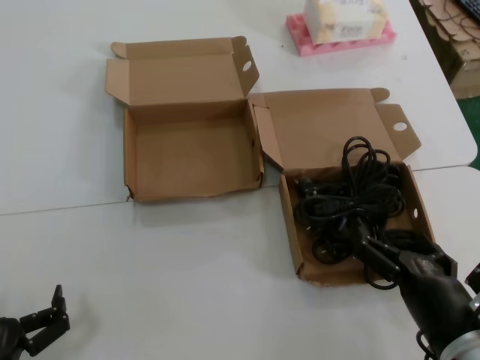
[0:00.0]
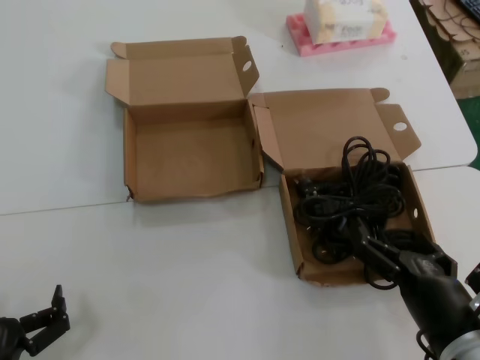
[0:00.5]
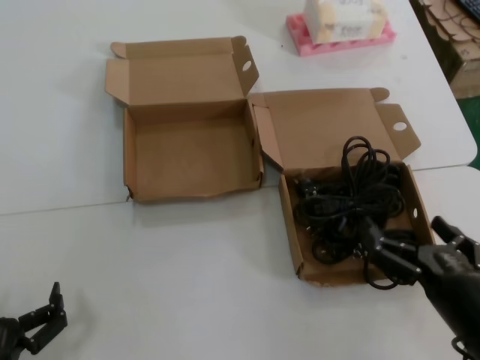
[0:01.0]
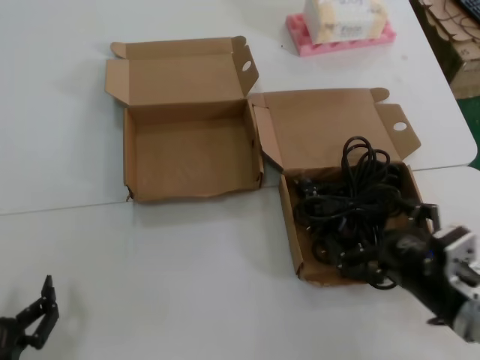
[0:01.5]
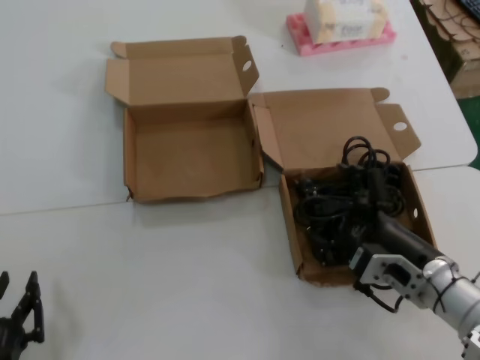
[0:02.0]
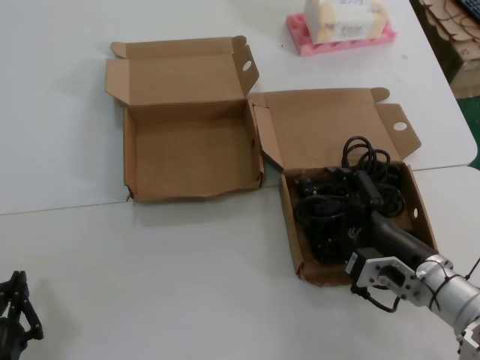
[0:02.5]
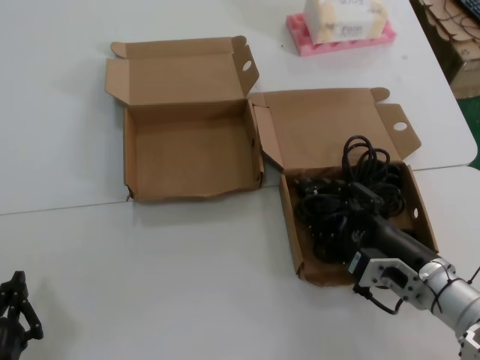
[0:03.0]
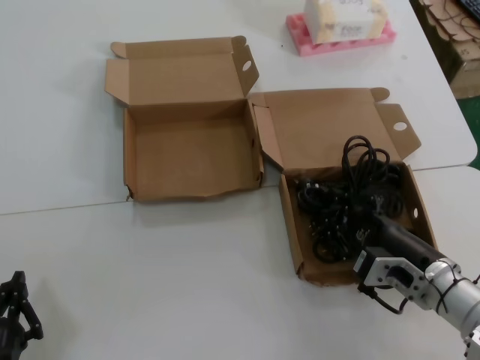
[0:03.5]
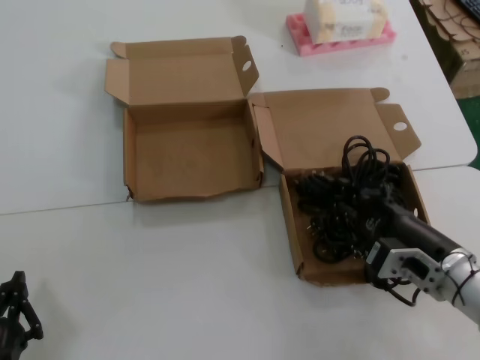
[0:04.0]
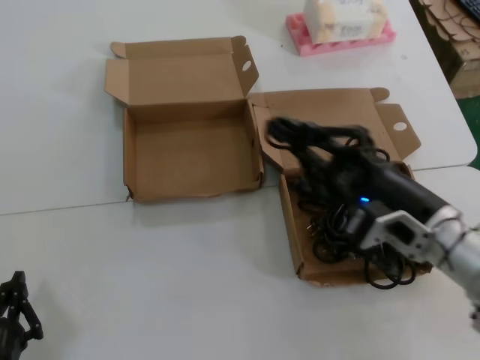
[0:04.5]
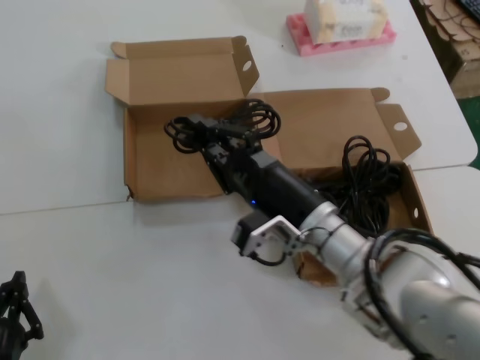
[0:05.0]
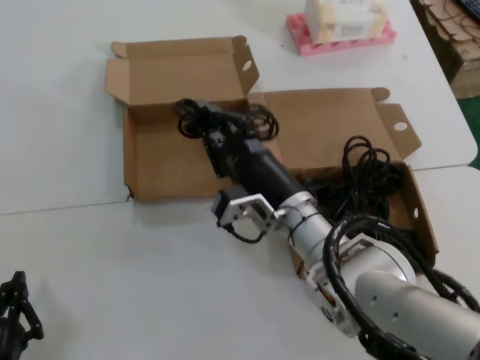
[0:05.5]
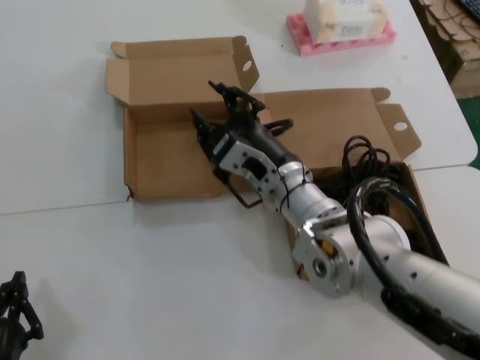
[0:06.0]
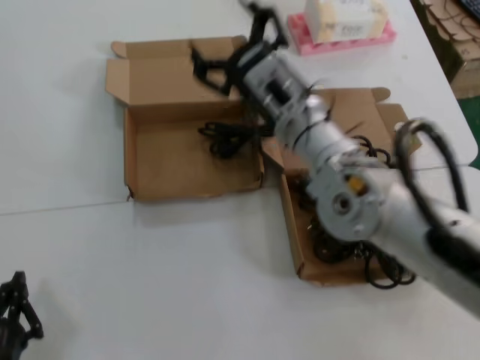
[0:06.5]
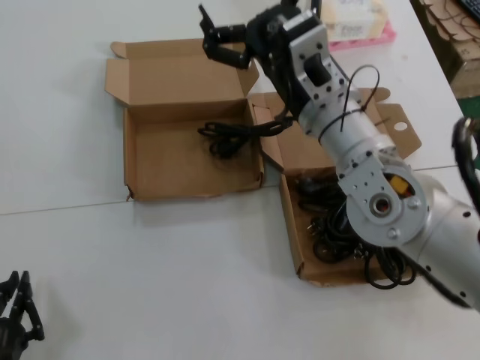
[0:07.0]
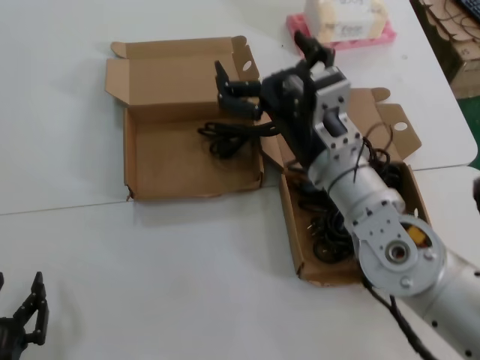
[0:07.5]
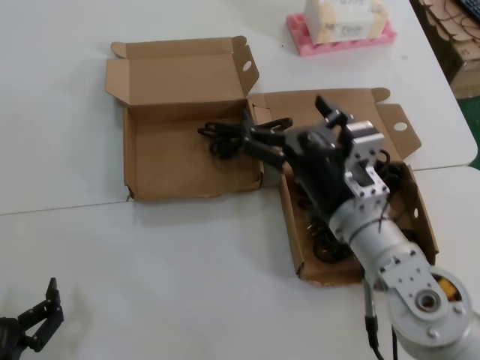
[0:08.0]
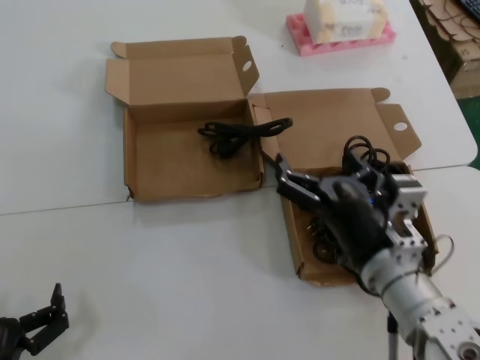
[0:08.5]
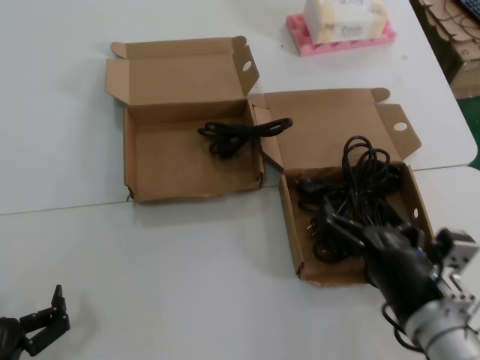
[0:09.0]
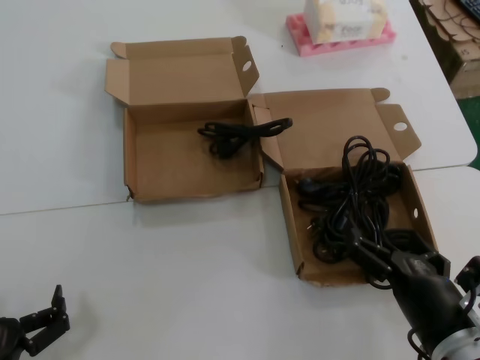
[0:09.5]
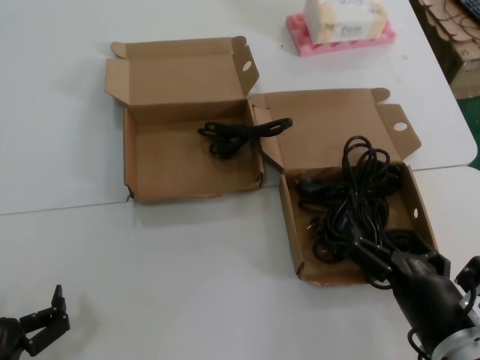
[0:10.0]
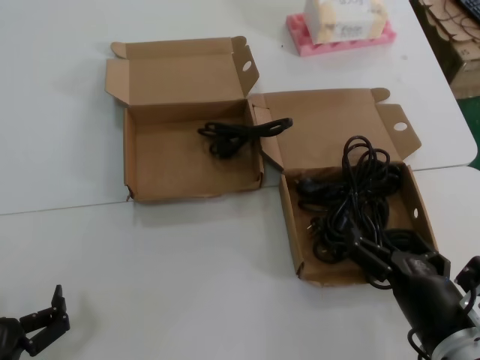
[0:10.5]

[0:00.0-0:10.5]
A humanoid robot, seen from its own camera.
Task of the whole recording: Pick up the power cord from the box containing it and place it in another box.
Step, 0:00.0 to 0:04.0: Grasp the data cable.
Step, 0:04.5 to 0:06.0: Place the data cable in the another box.
0:00.0 to 0:02.0: The right hand shifts approximately 10 cm forward.
0:02.0 to 0:04.0: The hands move only a little.
0:04.0 to 0:06.5: The right hand travels to the left, upward and forward by about 25 cm.
0:06.5 to 0:08.5: The right hand travels downward, backward and to the right by some 20 cm.
0:08.5 to 0:10.5: The right hand is displaced backward, downward and to the right by some 10 cm.
